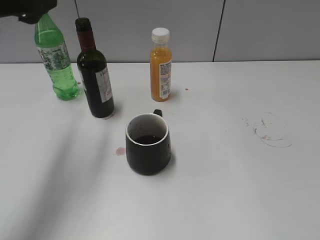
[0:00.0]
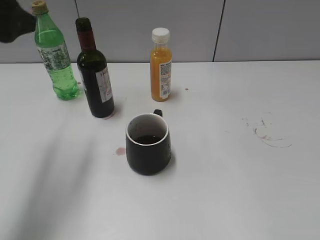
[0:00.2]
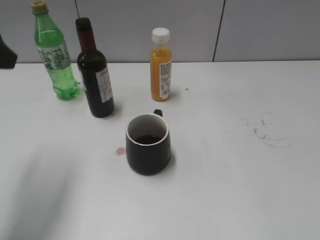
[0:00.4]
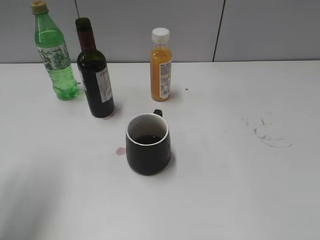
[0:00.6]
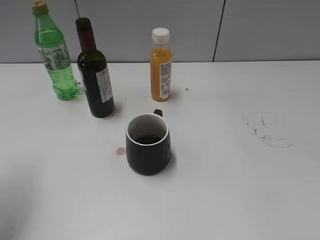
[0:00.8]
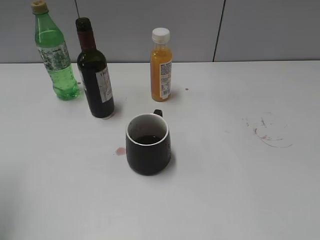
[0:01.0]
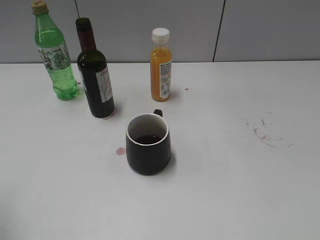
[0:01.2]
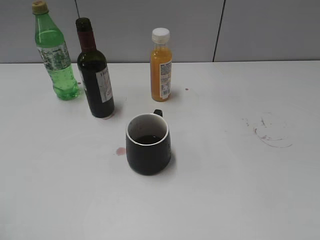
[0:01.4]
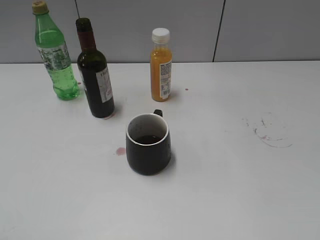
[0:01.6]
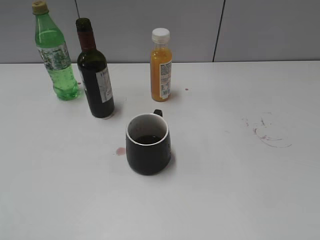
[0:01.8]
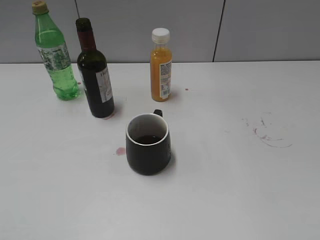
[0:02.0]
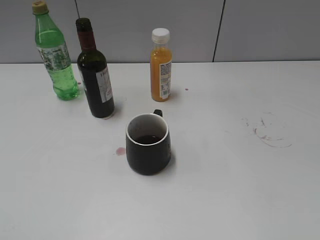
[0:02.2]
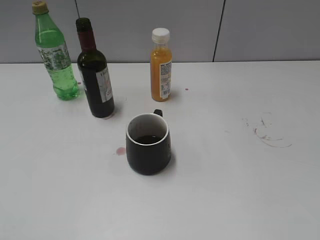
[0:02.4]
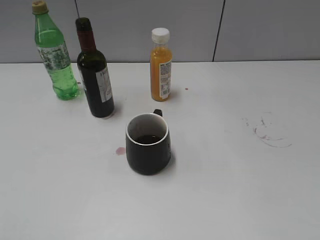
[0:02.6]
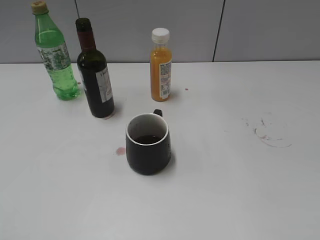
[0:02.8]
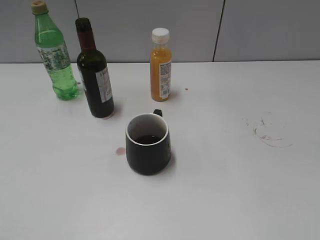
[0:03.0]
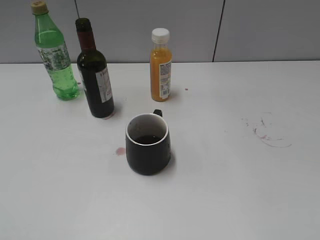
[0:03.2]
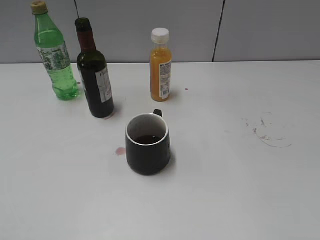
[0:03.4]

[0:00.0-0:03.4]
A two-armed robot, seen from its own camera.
0:00.0 to 0:01.6: The left gripper is displaced backward by approximately 20 cm.

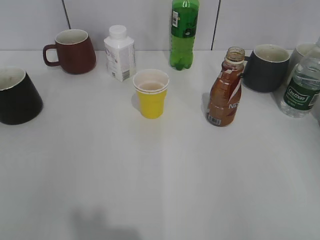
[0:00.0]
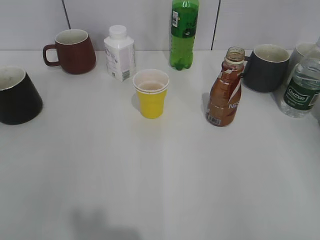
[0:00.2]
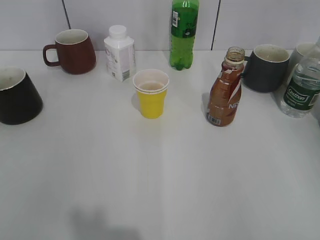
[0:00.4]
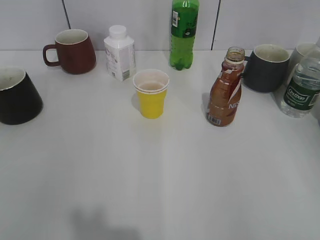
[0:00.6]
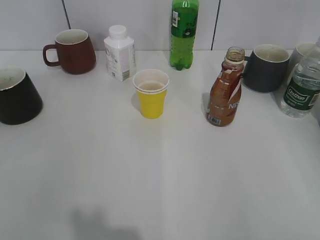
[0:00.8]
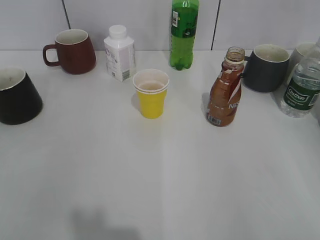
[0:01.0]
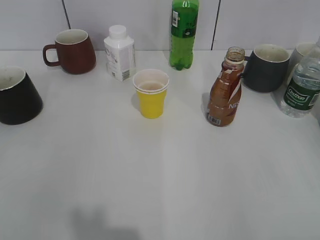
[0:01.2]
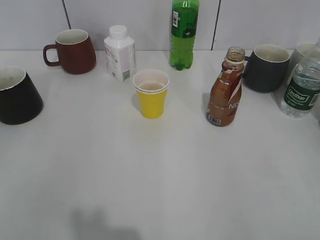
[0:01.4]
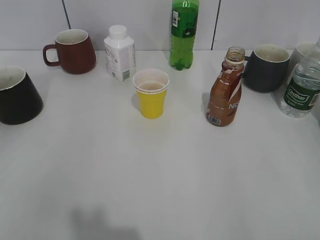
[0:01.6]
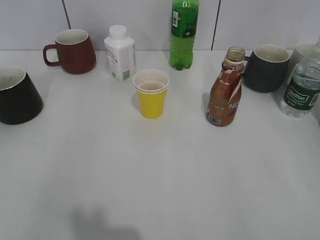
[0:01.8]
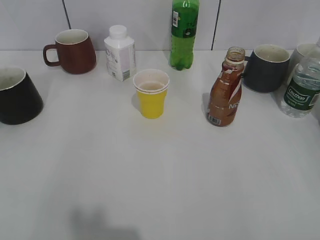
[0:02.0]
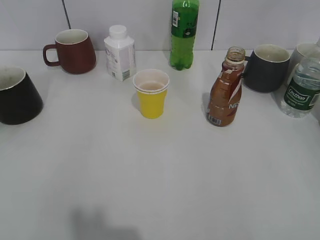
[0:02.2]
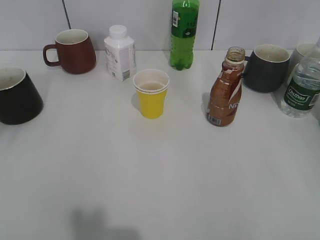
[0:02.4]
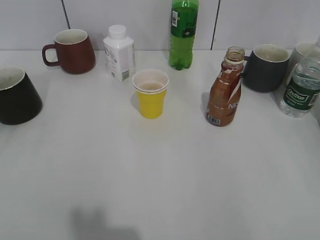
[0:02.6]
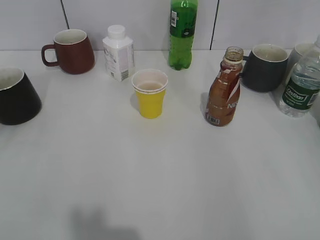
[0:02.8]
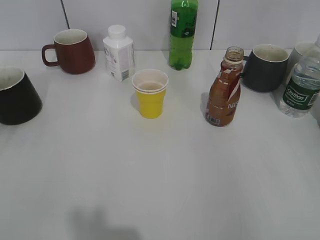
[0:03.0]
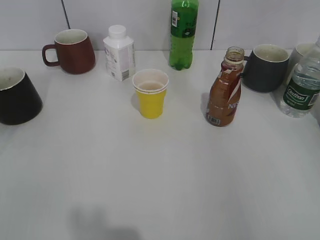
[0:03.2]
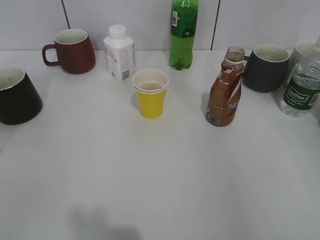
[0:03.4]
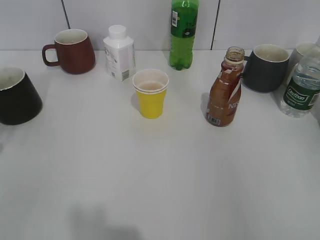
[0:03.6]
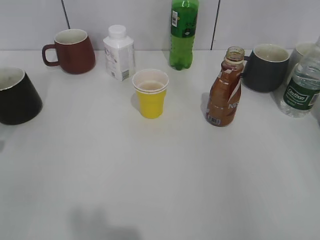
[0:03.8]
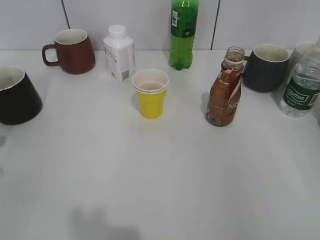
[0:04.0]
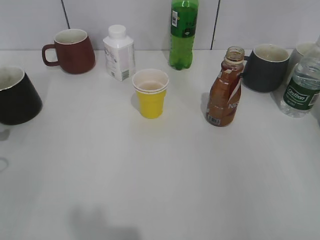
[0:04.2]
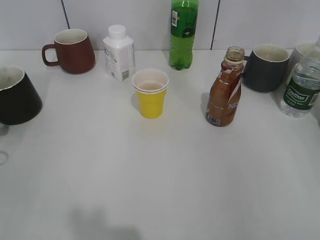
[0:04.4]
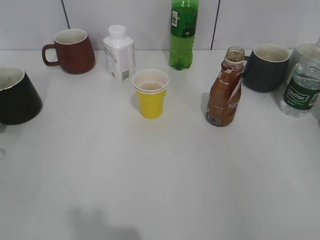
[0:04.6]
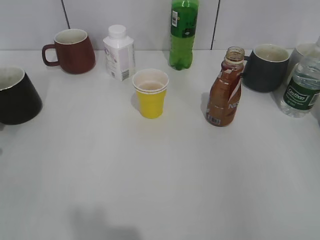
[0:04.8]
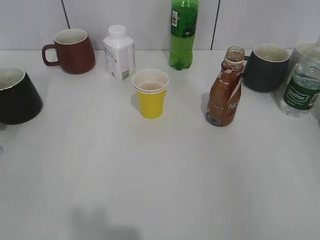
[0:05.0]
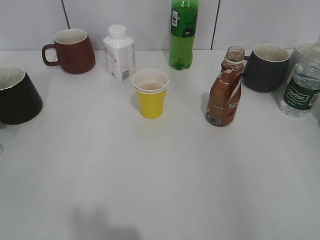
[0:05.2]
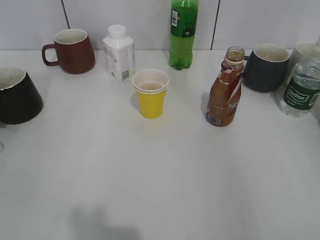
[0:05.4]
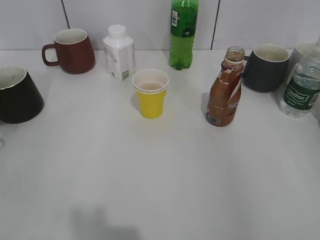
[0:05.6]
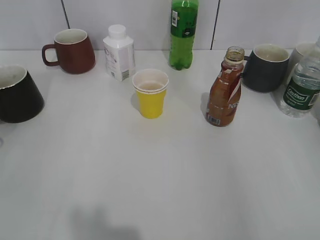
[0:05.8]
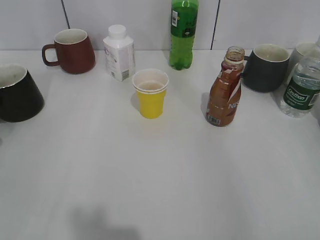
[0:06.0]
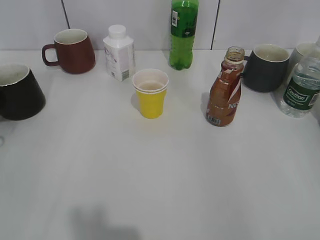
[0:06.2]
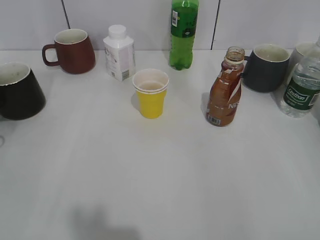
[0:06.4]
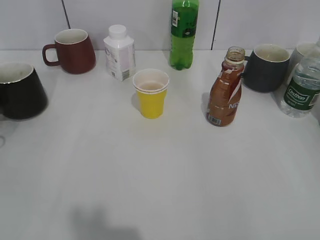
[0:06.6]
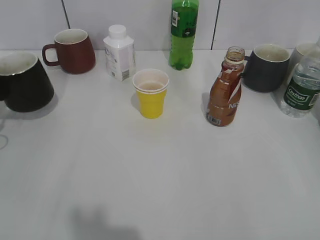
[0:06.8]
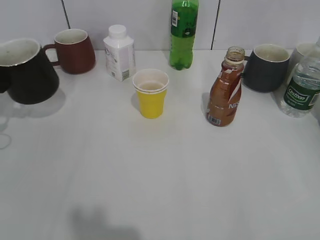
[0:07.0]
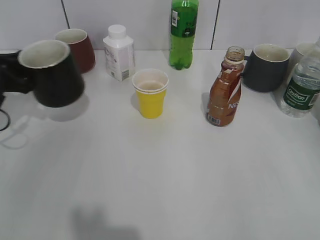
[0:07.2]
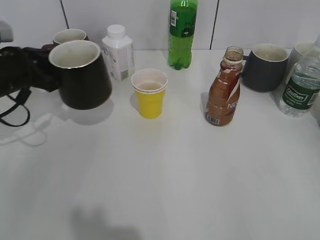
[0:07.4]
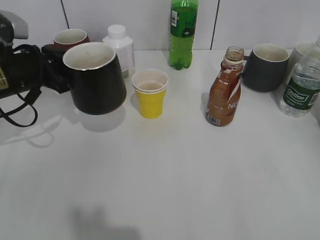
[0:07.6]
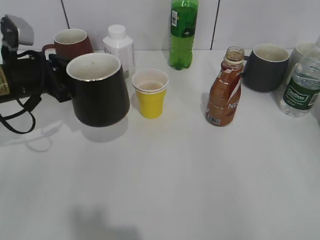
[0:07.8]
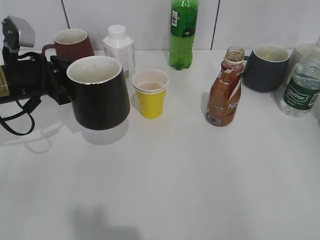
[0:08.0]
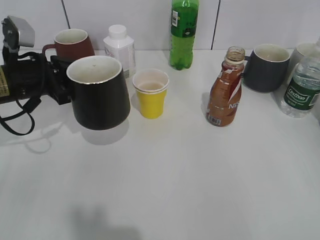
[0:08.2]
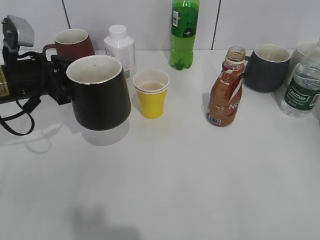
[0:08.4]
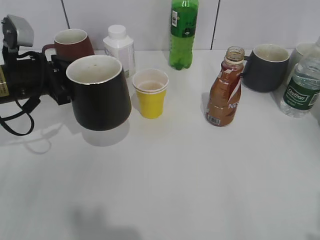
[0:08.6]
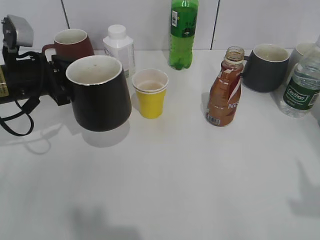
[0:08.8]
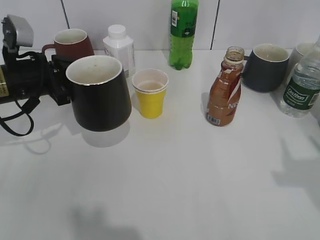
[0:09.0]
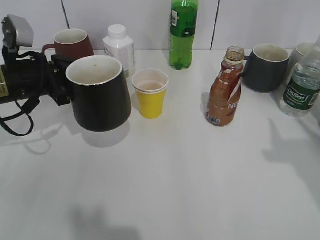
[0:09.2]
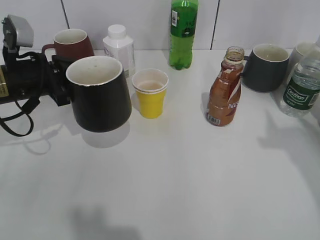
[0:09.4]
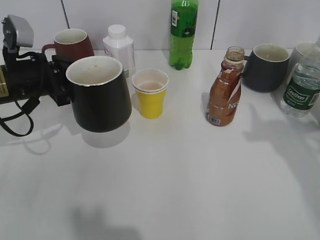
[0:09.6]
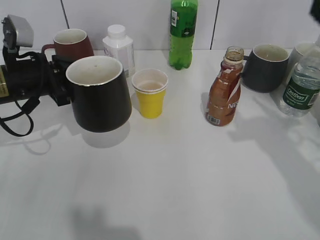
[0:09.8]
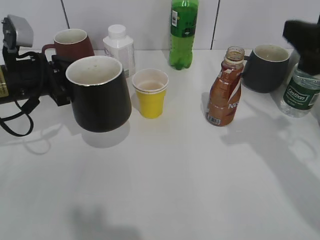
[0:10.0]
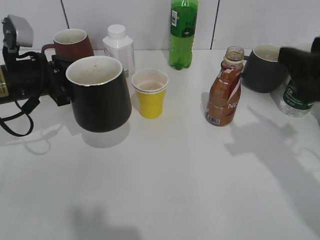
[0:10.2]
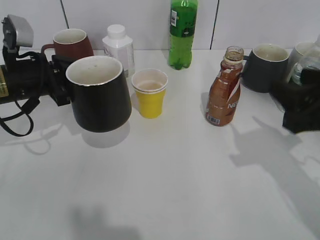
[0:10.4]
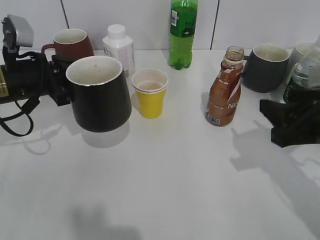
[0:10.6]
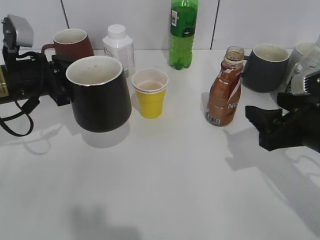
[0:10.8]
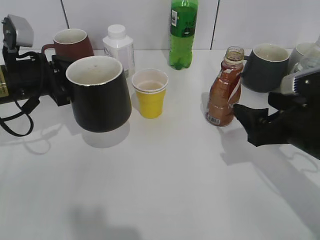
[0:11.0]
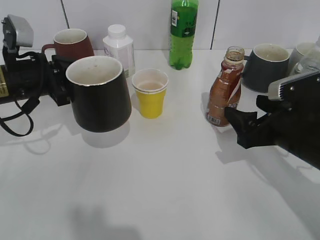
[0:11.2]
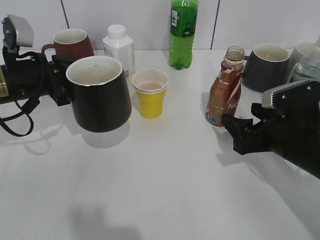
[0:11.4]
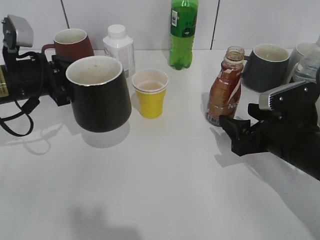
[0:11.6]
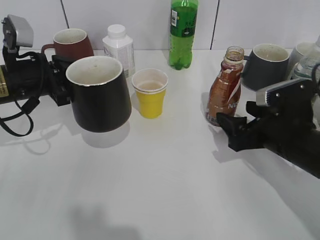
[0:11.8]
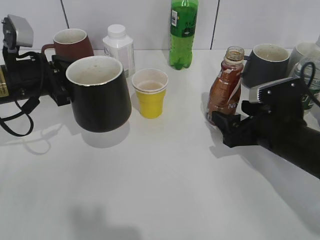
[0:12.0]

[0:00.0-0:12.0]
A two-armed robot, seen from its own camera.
Step, 0:01.4 to 0:06.0: Grasp the black cup with left gripper.
Step, 0:06.4 to 0:08.4: Lift the black cup with left gripper.
0:01.6 to 0:03.0: The left gripper is displaced forward and downward by roughly 15 cm.
0:04.4 to 0:06.0: The left gripper shifts some 5 cm forward.
0:06.0 to 0:07.6: The left gripper shifts some 15 cm to the right and upward, and closes up.
0:07.6 to 0:09.0: The right gripper is displaced forward and upward by some 10 cm.
0:09.0 to 0:10.4: The right gripper moves downward, forward and to the left, about 15 cm.
0:10.4 to 0:12.0: The right gripper shifts some 10 cm downward and forward, and opens.

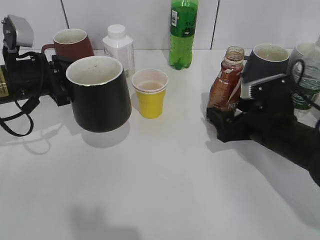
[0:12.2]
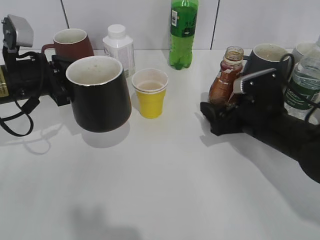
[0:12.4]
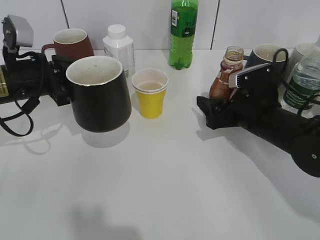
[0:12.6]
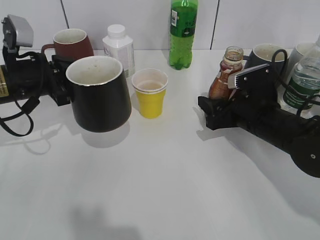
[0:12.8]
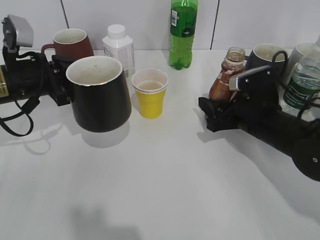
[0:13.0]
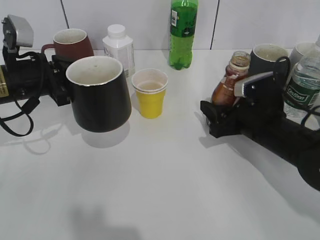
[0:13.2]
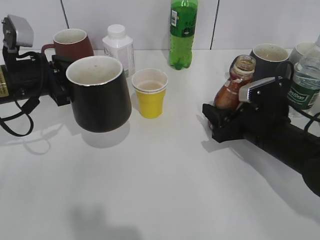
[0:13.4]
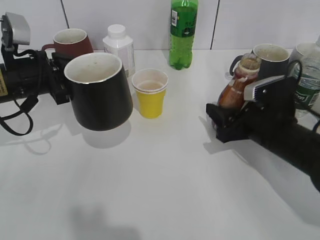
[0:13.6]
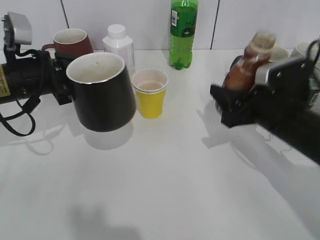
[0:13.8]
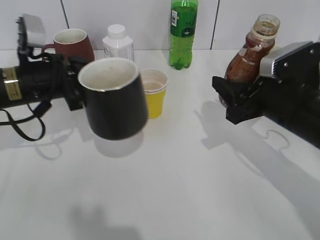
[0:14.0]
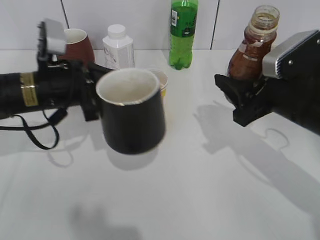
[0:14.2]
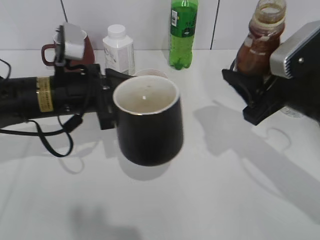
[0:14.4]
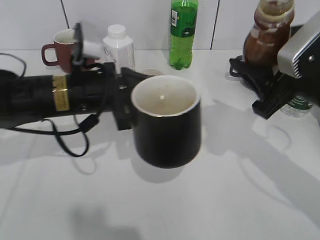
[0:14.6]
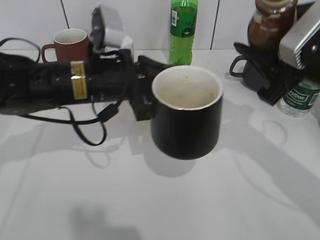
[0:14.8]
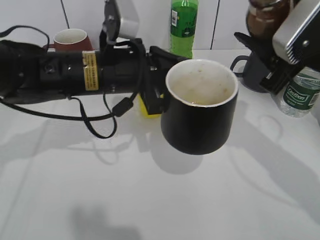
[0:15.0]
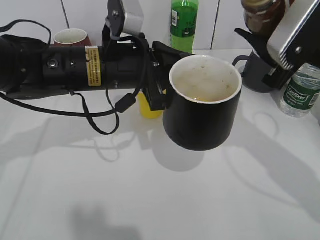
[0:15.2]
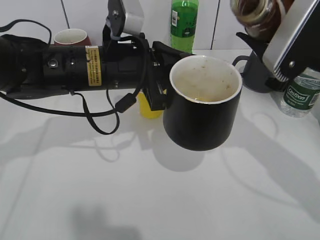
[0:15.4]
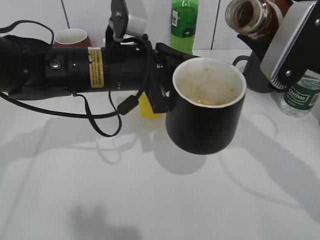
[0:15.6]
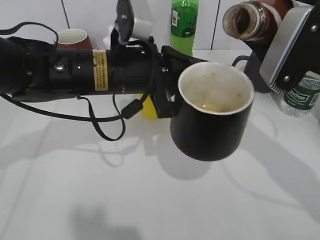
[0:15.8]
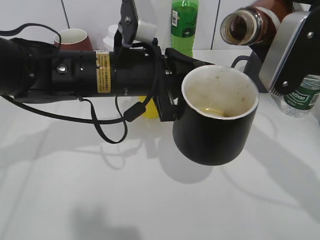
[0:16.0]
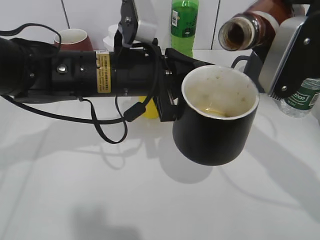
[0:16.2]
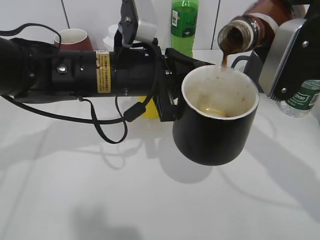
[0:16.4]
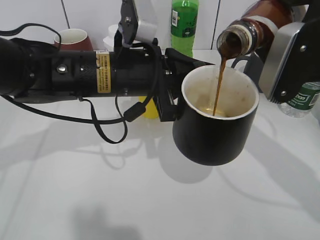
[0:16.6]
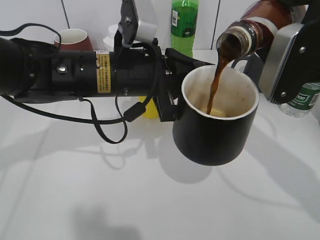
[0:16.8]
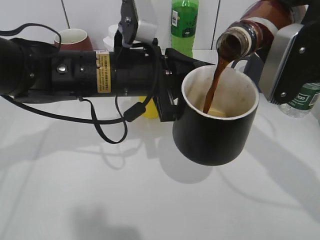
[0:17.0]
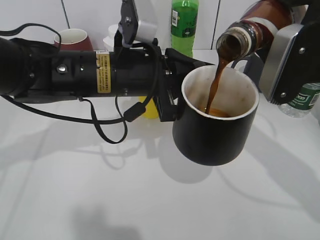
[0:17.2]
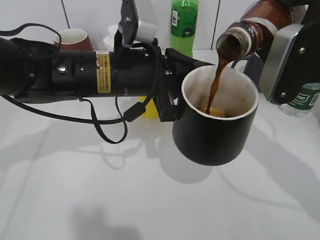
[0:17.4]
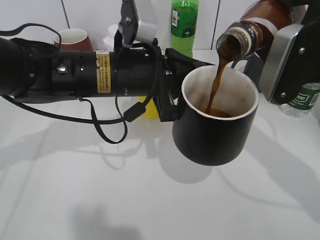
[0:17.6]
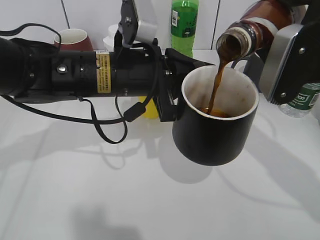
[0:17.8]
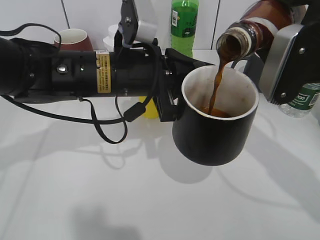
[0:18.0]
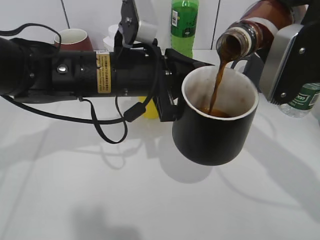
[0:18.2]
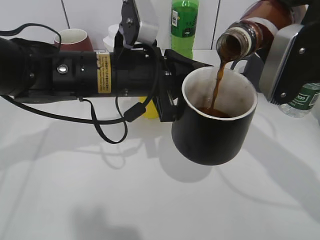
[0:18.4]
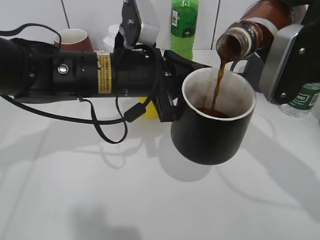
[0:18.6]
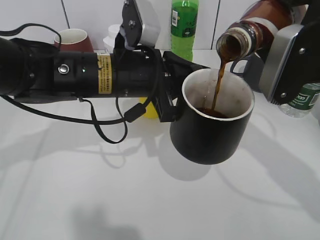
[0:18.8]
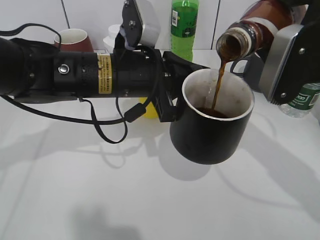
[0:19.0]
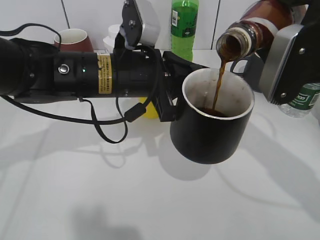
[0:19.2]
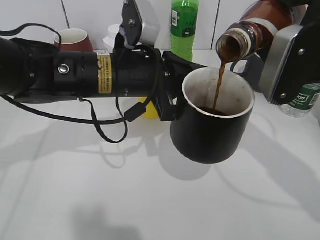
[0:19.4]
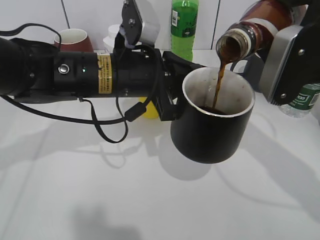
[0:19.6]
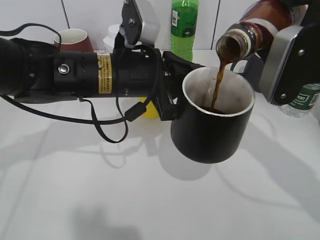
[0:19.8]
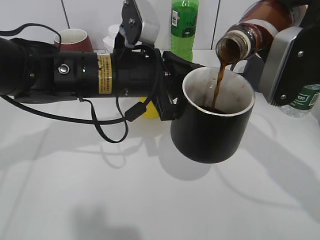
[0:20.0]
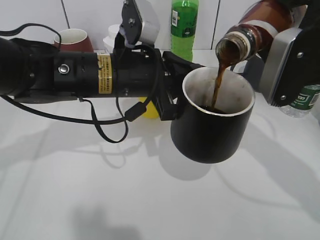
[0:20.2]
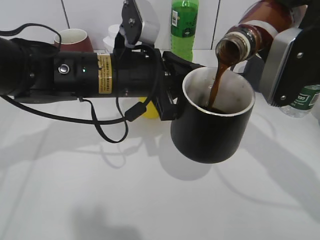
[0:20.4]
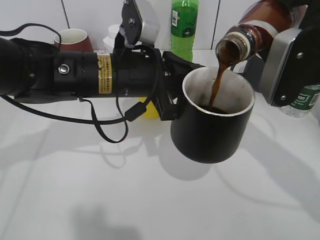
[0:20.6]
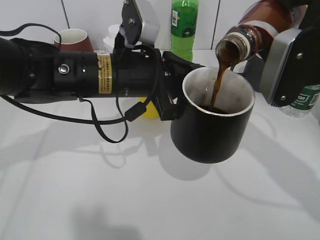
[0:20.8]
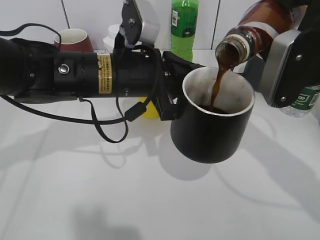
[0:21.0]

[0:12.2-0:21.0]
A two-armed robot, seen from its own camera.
0:12.2 to 0:13.6: The right gripper closes.
0:13.6 to 0:15.2: The right gripper moves upward, approximately 15 cm; the left gripper heads to the right, covering roughly 15 cm.
0:16.6 to 0:19.6: Both grippers stay about where they are.
0:19.6 to 0:21.0: The two grippers keep their place.
